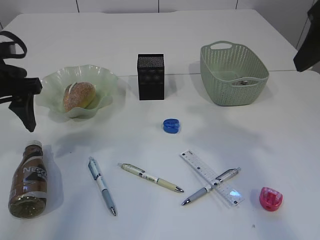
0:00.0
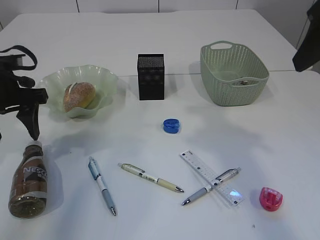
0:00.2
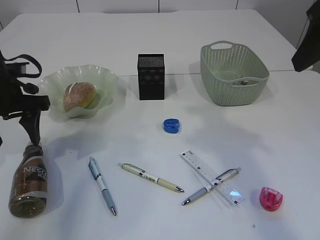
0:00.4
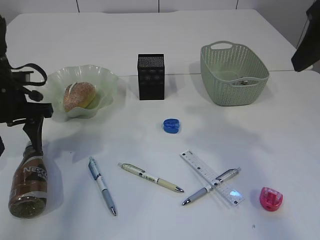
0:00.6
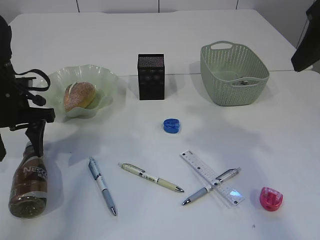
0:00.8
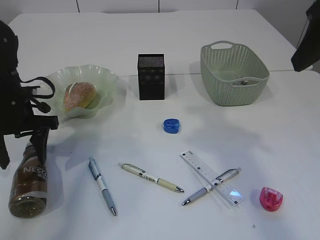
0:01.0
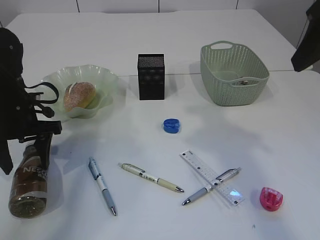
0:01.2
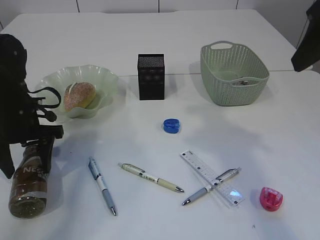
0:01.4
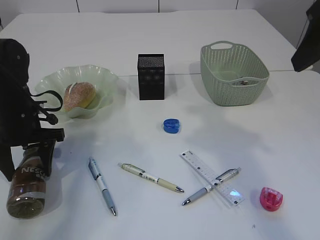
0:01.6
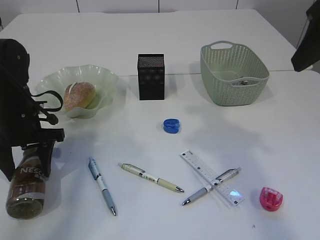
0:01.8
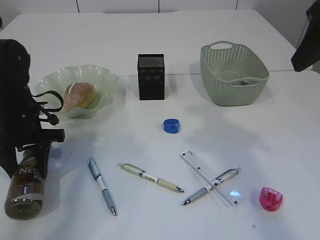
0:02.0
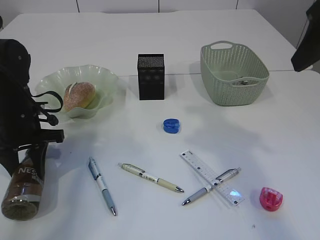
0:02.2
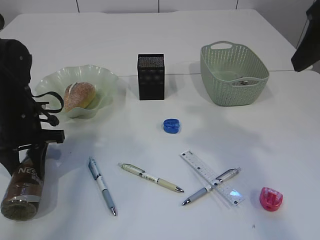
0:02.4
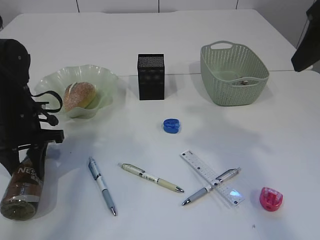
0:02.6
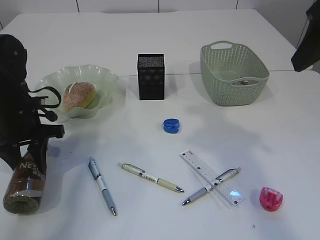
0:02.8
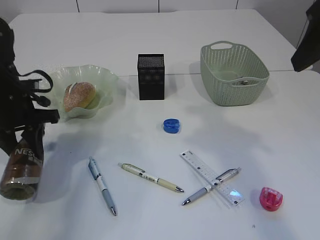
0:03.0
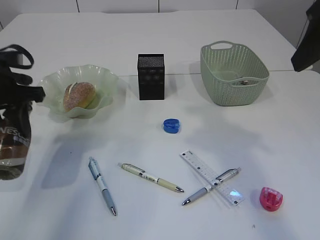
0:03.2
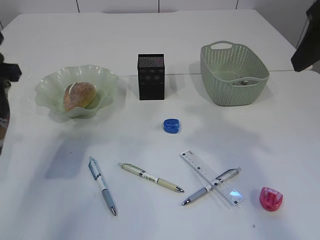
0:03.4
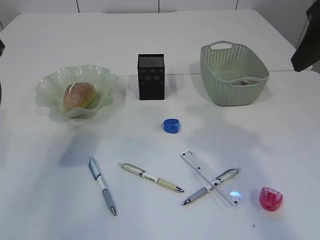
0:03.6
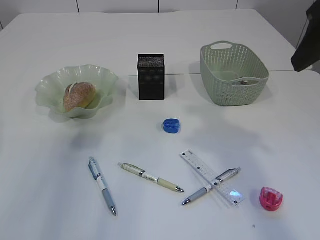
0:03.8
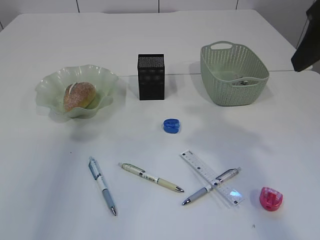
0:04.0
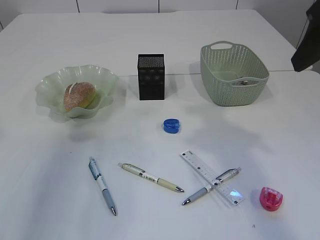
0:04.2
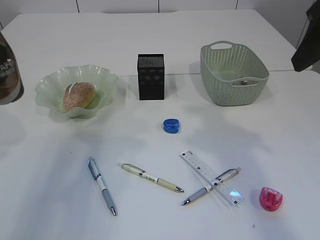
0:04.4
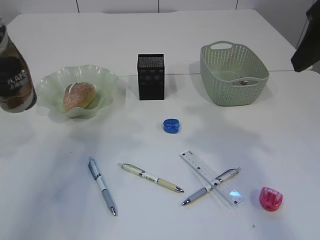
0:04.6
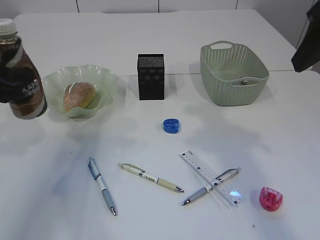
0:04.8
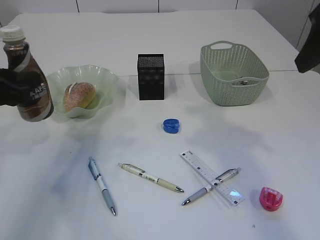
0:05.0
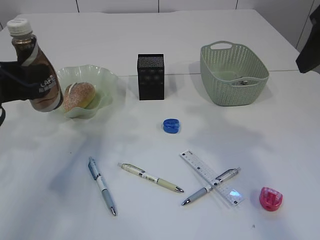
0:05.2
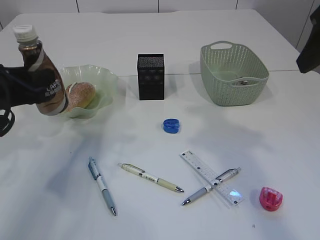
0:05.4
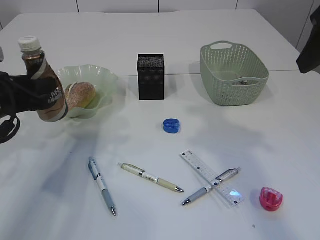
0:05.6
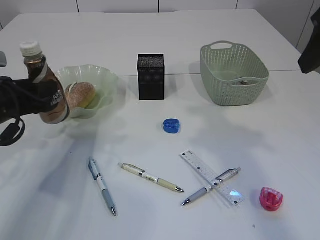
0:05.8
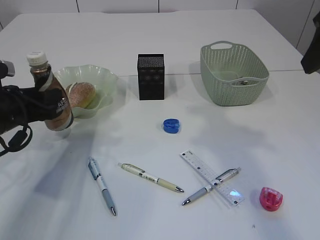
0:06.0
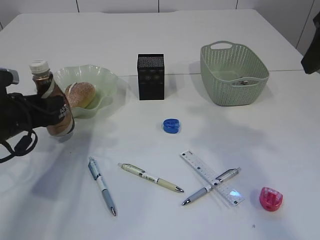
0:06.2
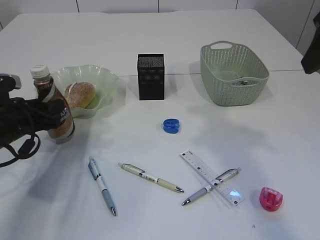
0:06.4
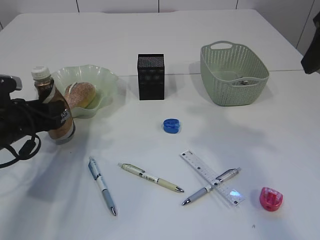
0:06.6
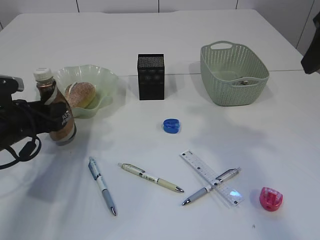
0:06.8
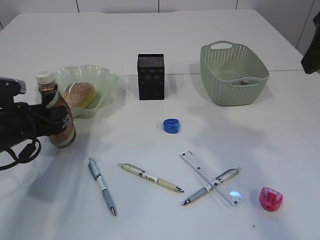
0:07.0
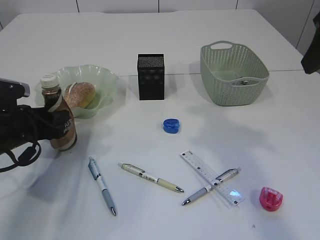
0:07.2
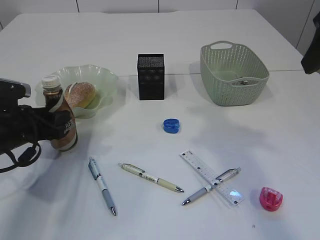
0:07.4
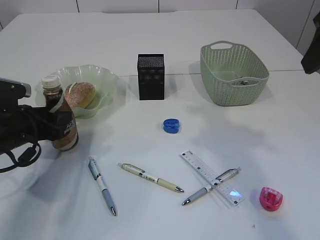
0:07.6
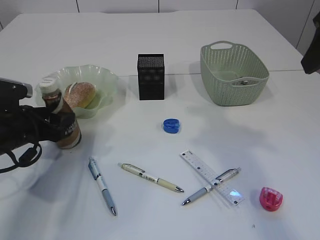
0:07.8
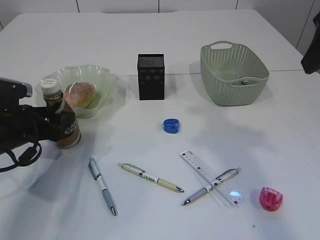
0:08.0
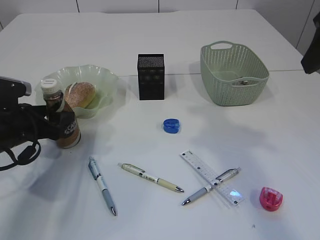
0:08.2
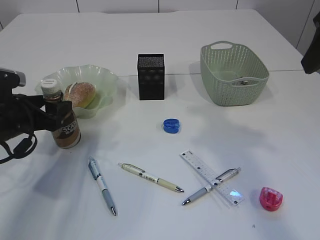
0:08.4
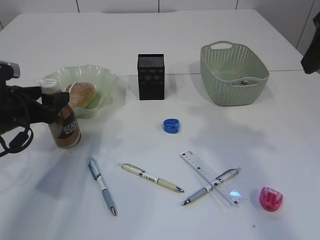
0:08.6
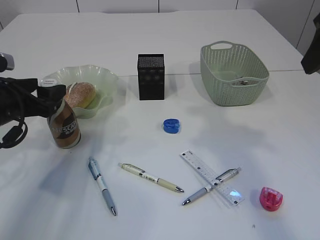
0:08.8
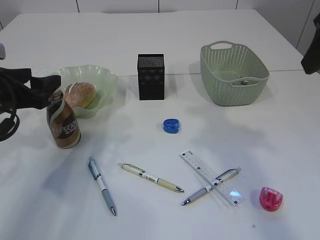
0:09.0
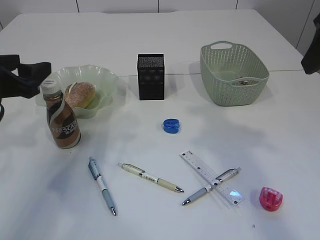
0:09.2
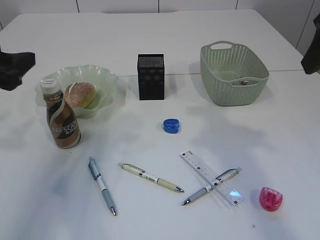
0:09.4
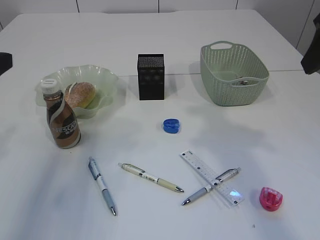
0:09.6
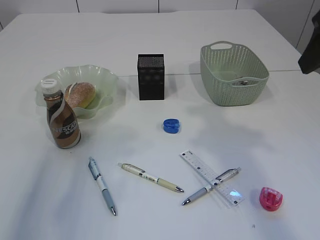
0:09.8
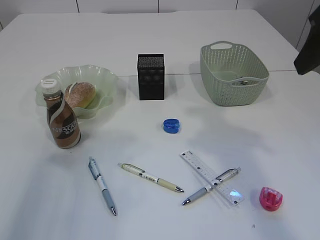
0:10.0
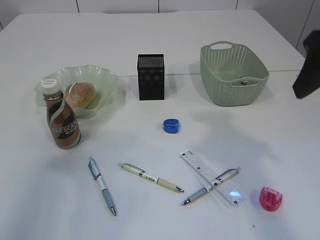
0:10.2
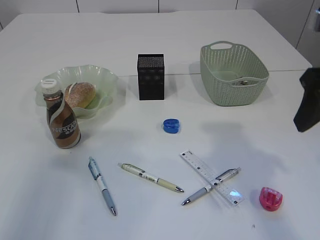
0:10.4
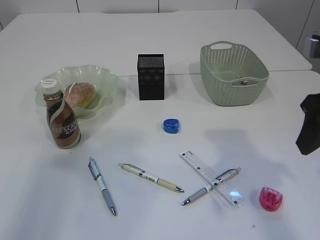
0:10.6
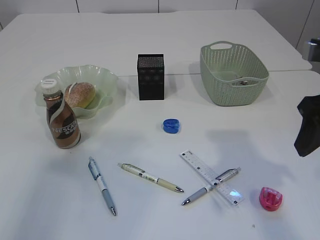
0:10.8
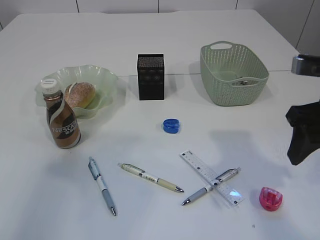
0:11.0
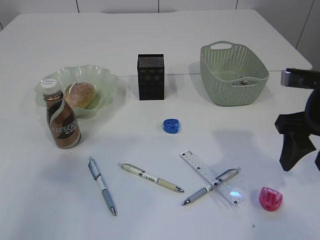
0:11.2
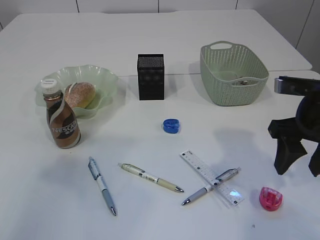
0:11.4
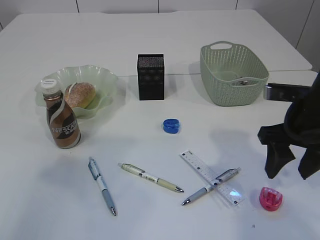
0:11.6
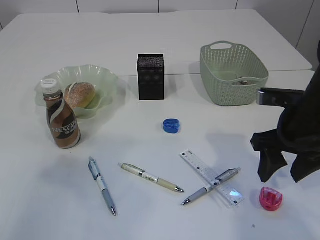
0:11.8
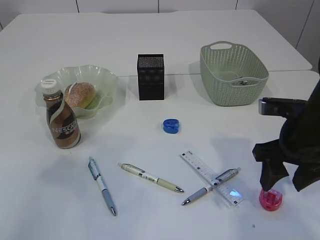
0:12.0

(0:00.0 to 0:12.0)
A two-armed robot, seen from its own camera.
Step, 0:00.0 - 0:03.2: Pick up the bottle with the left arm.
Step, 0:03.4 - 0:09.2: Place the bottle.
0:00.0 - 0:01.6: The left gripper is displaced downward by approximately 10 cm.
0:01.6 - 0:03.0: The left gripper closes.
0:03.0 - 0:04.4: The left gripper goes roughly 15 cm upward and backward.
0:04.4 - 0:06.0: The left gripper goes approximately 15 cm downward and forward.
0:06.0 - 0:07.6: The left gripper opens.
0:07.6 - 0:09.0: The left gripper shifts some 5 cm upward.
0:09.0 - 0:10.4: The left gripper travels upward and backward by approximately 25 cm, while the right gripper goes some 5 cm downward.
0:10.4 - 0:12.0: The right gripper shifts about 15 cm downward.

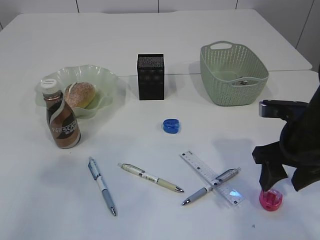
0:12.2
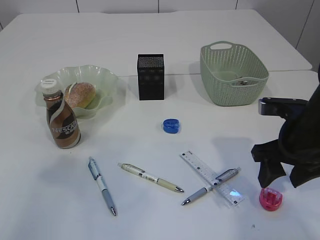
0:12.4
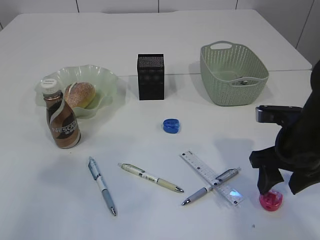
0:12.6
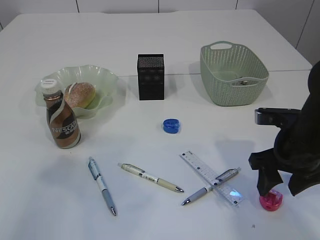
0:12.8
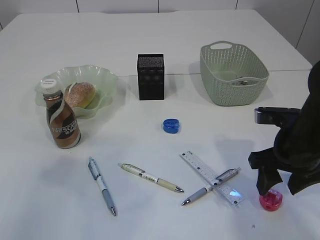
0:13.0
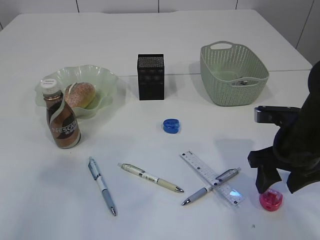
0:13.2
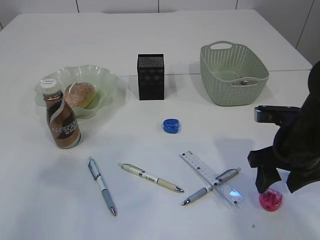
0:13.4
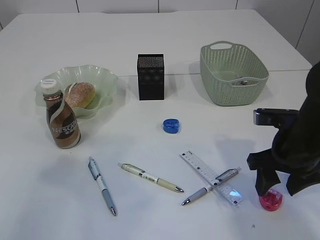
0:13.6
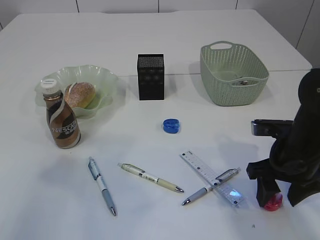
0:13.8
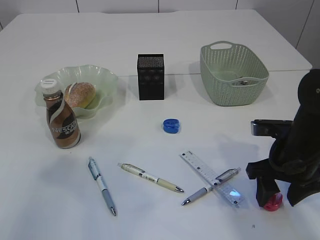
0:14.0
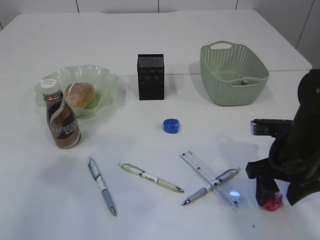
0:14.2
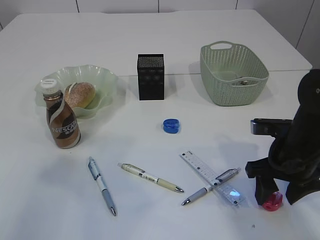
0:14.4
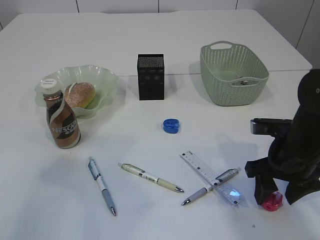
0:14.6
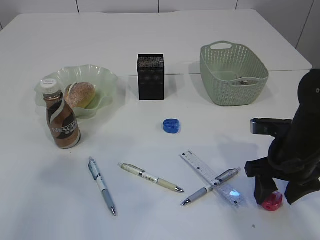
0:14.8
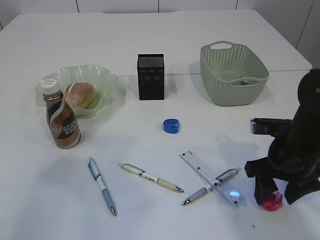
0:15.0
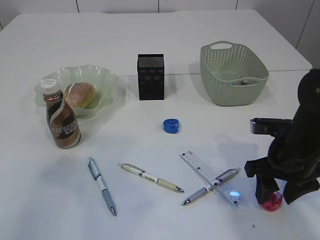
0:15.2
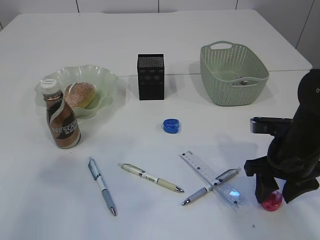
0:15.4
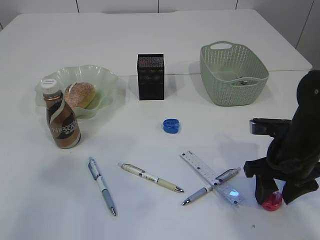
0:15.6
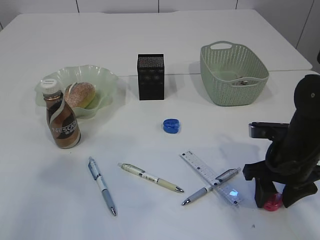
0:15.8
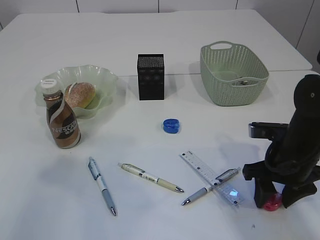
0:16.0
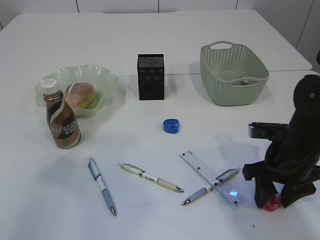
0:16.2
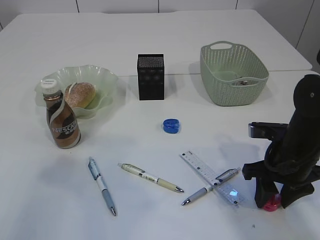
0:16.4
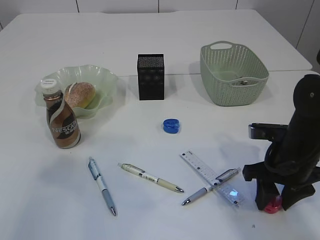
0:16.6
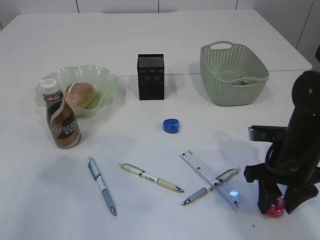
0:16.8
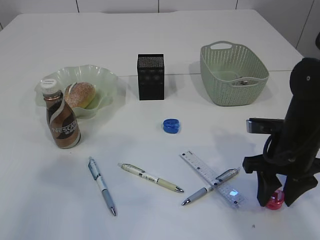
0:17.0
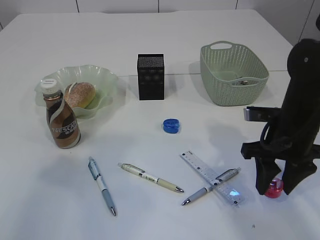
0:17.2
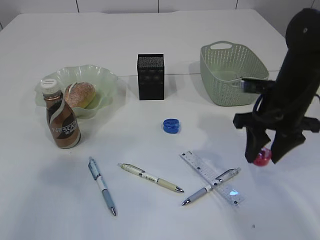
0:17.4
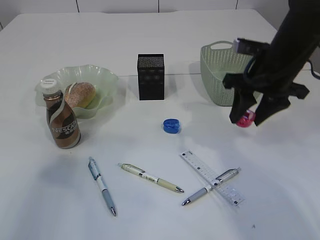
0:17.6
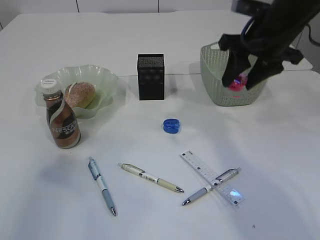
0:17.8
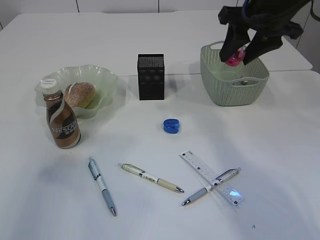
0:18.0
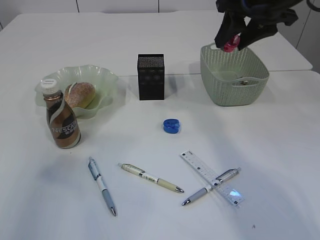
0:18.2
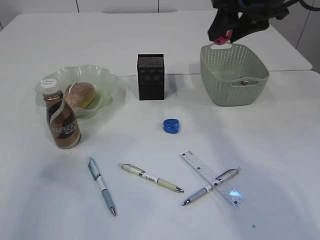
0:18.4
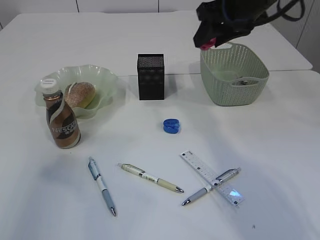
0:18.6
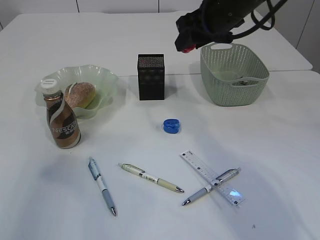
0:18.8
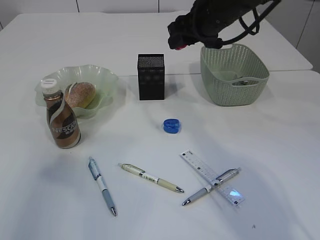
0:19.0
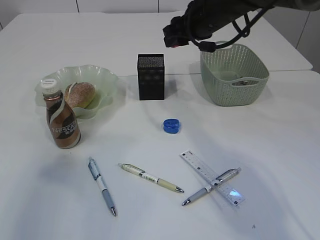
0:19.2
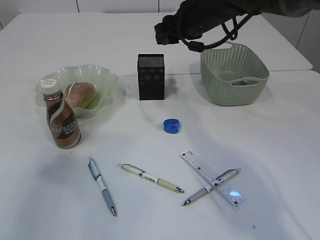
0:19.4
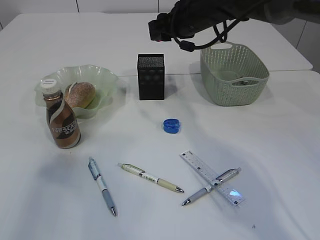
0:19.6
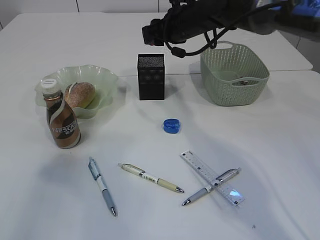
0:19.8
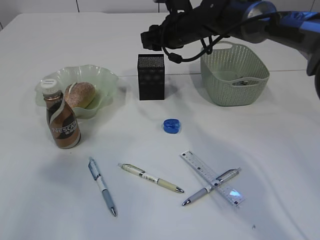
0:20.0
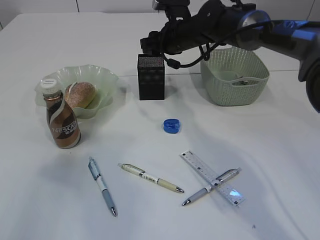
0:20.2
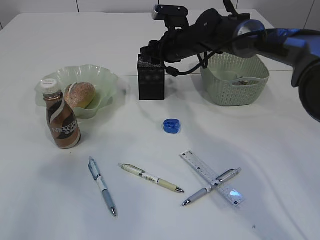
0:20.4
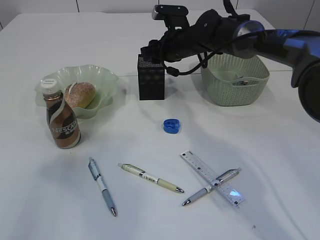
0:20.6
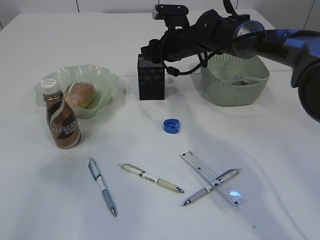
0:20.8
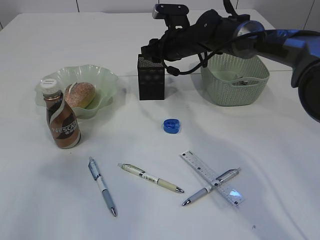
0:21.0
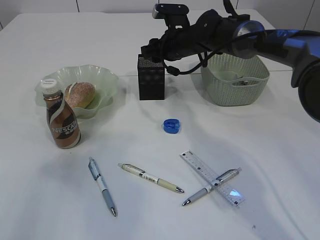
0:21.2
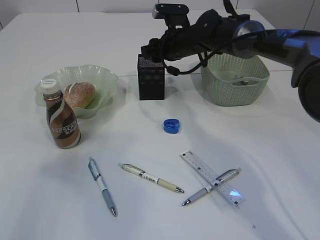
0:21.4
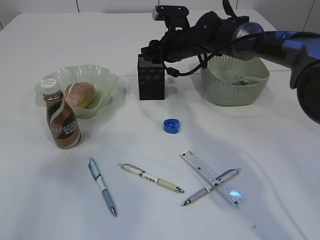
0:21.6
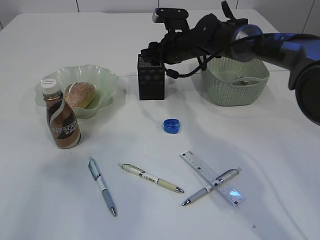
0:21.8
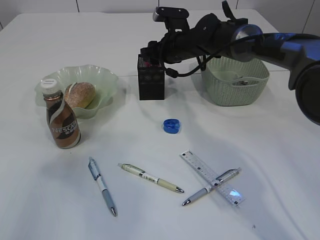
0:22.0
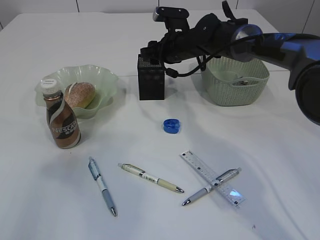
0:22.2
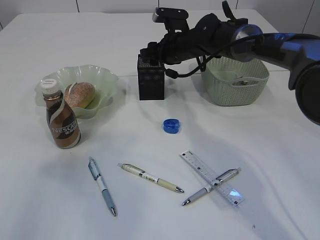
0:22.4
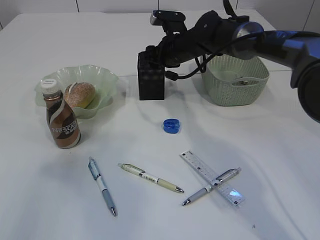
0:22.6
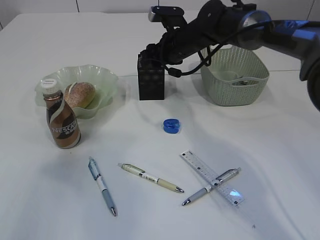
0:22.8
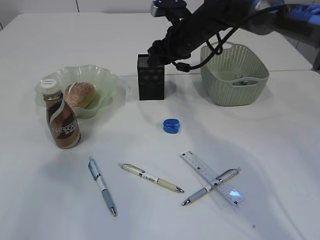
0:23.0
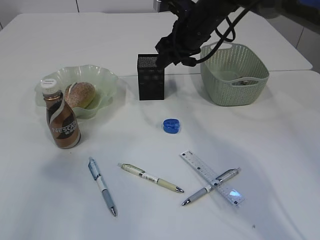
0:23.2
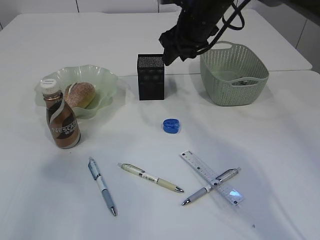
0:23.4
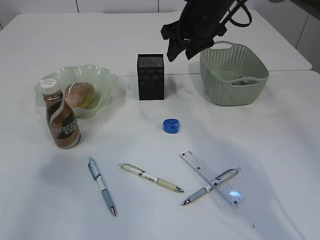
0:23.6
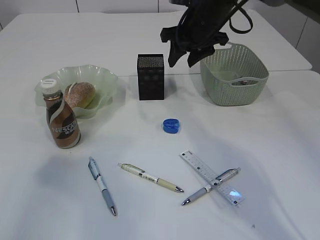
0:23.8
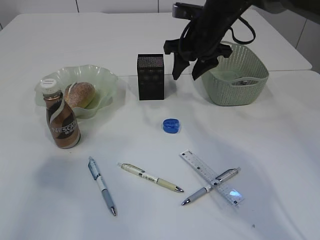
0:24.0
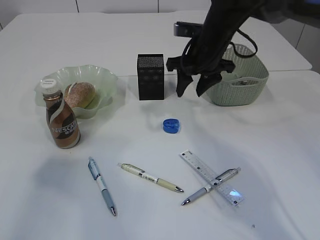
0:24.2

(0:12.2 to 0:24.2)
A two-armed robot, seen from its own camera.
Step, 0:12.2 - 0:17.4: Pick up the red pencil sharpener.
Step, 0:17.6 - 0:23.4: Place the red pencil sharpener into the pen holder.
0:12.2 - 0:13.8: The grippers move only a little.
0:13.8 - 0:16.6: The two grippers keep their place.
0:16.6 - 0:18.2: The right gripper moves upward and forward, some 25 cm.
0:18.2 - 0:19.8: The right gripper is displaced forward, to the left and downward by roughly 20 cm.
0:19.8 - 0:21.2: The right gripper goes roughly 5 cm downward.
0:21.2 - 0:22.6: The grippers stay close to where they were, moving slightly.
0:22.6 - 0:24.2: The right gripper heads backward and upward, covering about 10 cm.
